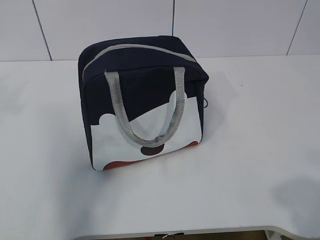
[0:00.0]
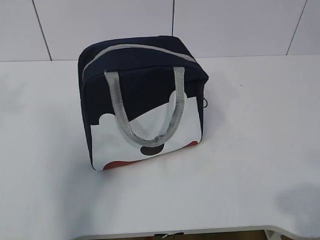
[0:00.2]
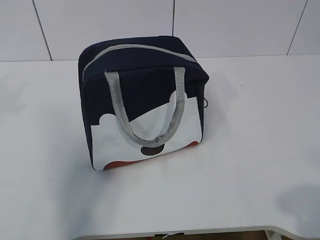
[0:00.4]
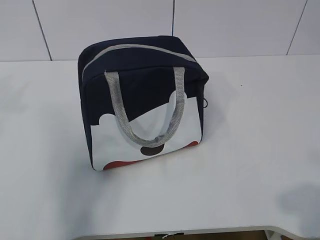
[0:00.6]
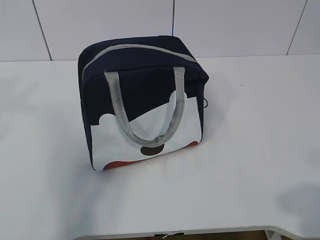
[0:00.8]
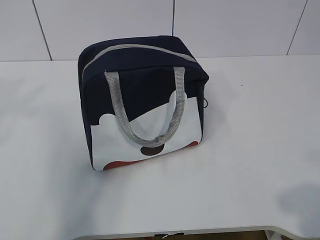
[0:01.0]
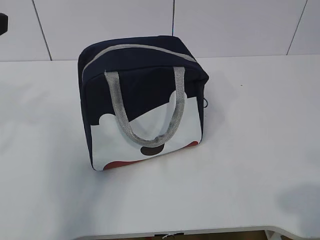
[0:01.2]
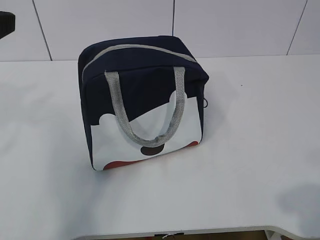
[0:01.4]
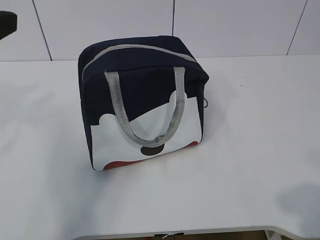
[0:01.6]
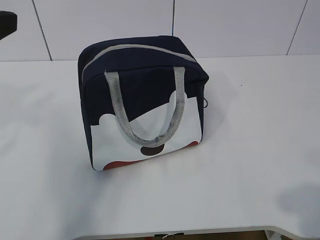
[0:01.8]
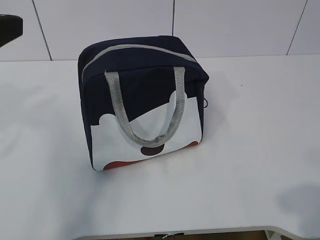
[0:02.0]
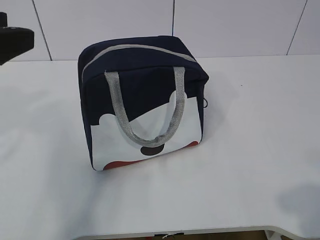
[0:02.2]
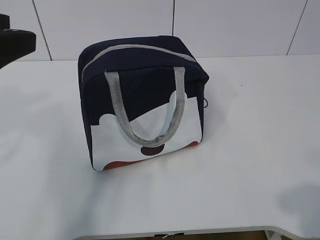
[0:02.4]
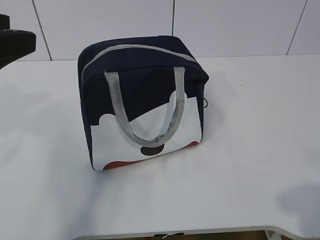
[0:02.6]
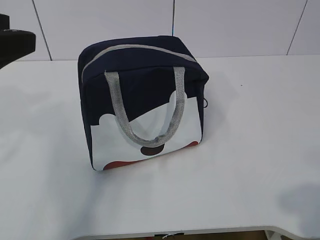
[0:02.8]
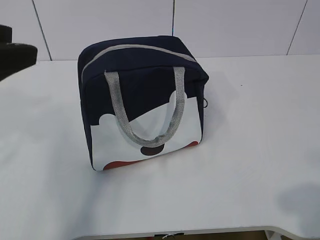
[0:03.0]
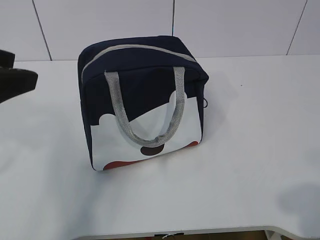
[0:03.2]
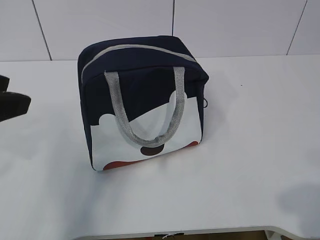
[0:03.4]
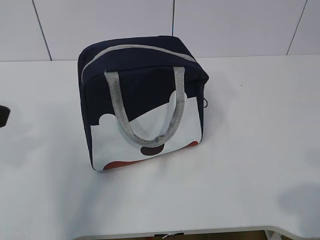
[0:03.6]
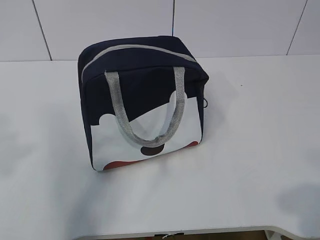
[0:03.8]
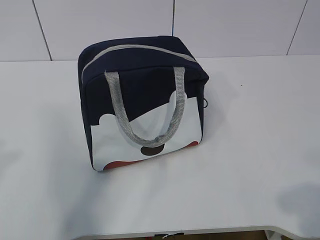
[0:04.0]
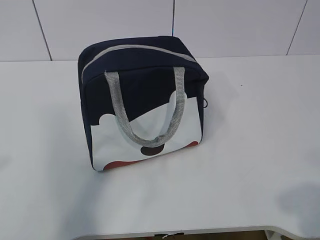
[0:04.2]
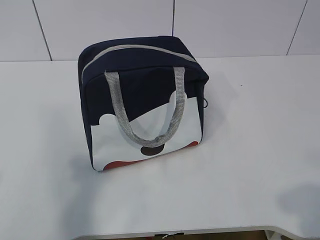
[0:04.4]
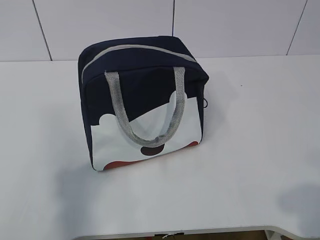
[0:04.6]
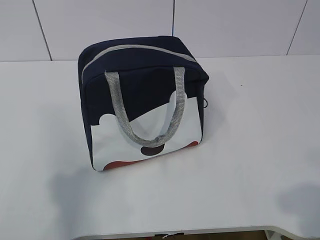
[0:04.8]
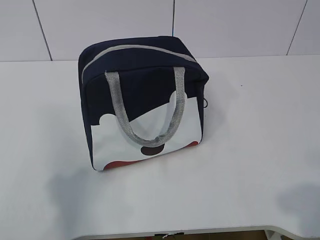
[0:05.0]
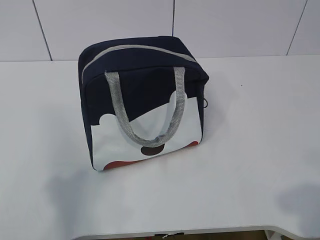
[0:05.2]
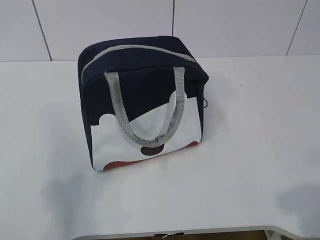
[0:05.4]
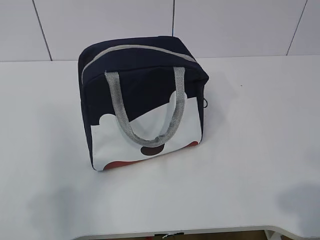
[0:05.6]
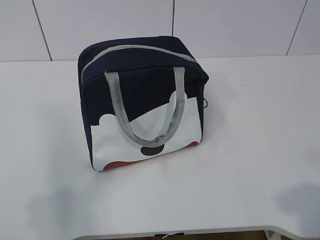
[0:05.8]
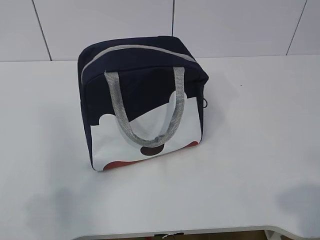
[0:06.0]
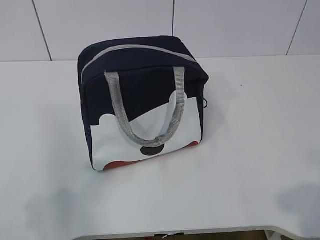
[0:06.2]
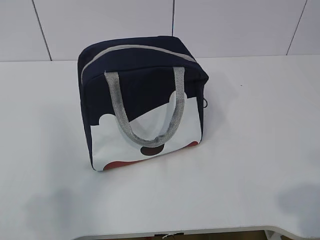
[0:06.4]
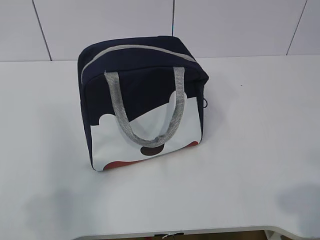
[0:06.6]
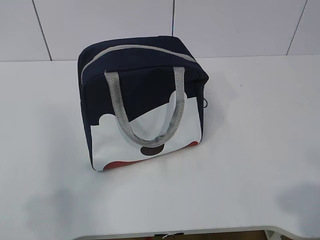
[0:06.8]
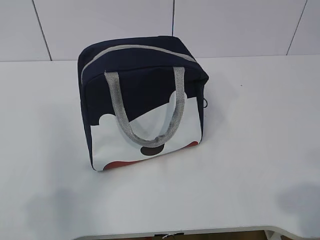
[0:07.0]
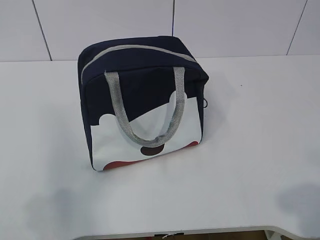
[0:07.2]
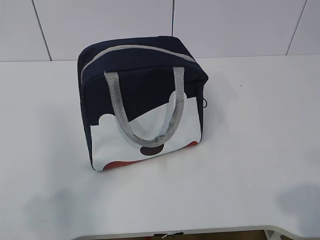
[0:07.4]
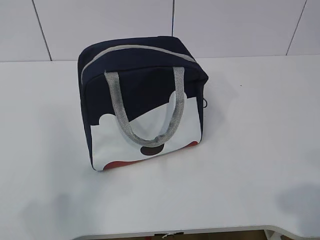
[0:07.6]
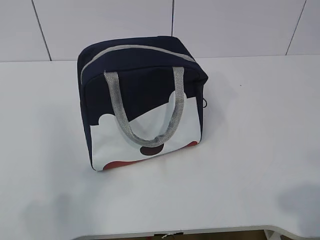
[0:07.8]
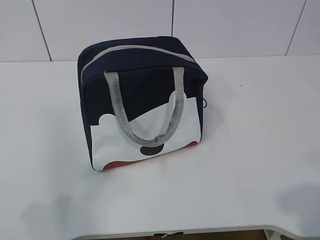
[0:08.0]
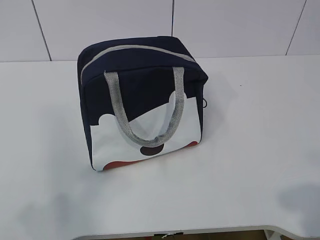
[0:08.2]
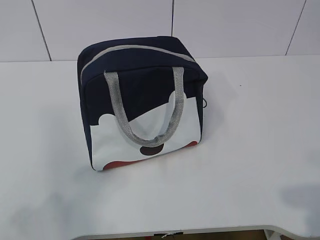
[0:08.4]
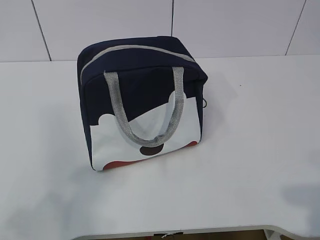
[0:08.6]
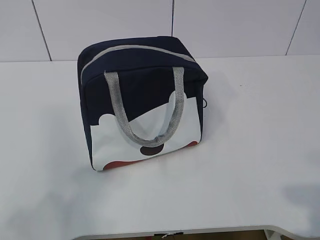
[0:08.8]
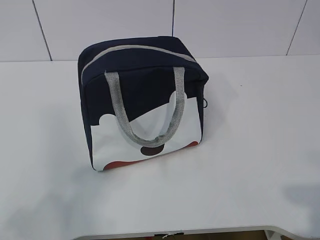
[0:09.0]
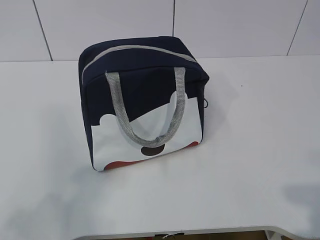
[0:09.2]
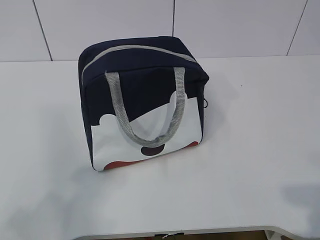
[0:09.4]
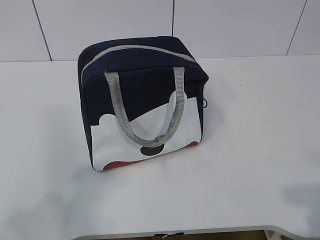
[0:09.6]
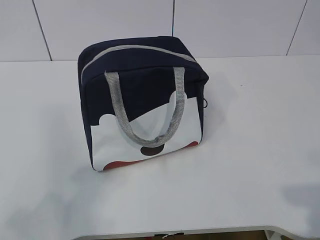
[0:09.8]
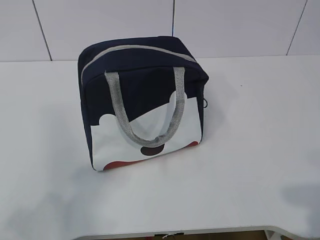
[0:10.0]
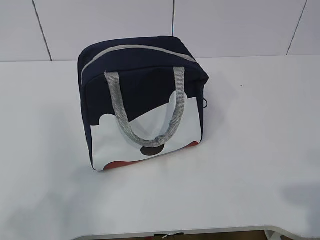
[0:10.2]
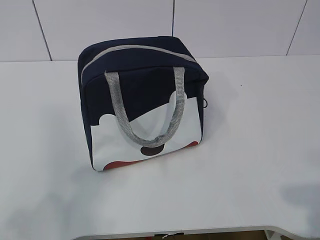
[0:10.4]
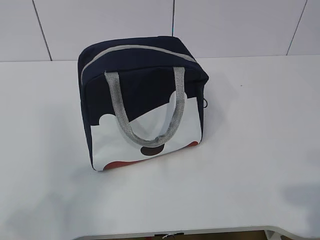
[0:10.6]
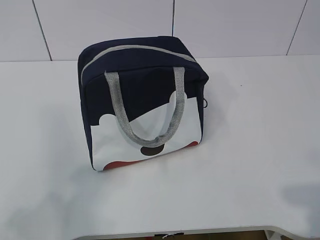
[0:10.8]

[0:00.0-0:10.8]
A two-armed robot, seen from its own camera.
0:01.6 to 0:03.0: The grippers move only a little.
0:03.0 to 0:04.6: The left gripper goes roughly 15 cm backward and to the left.
0:06.2 to 0:09.2: The grippers make only small movements.
0:09.2 to 0:10.8: The two grippers keep their place.
